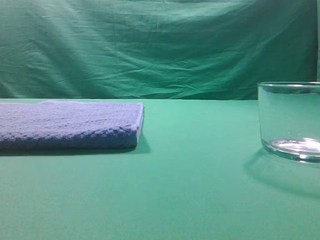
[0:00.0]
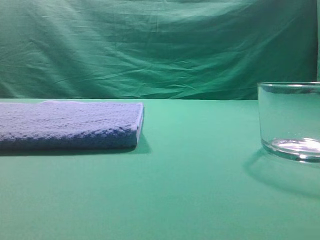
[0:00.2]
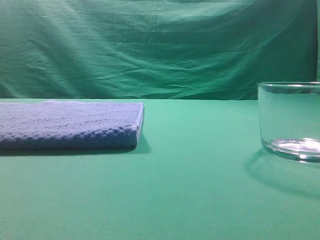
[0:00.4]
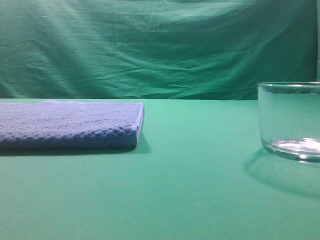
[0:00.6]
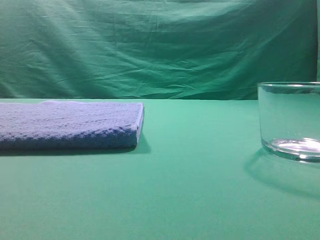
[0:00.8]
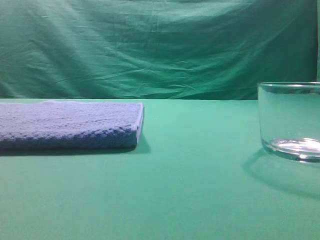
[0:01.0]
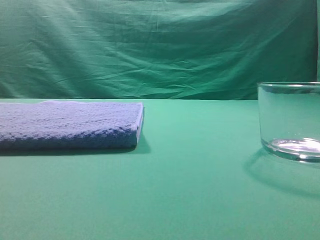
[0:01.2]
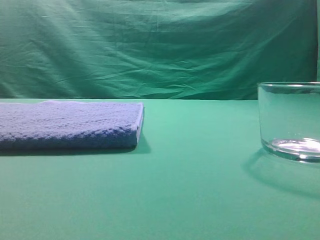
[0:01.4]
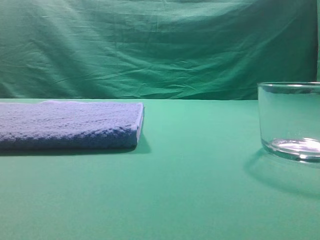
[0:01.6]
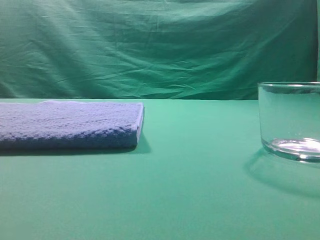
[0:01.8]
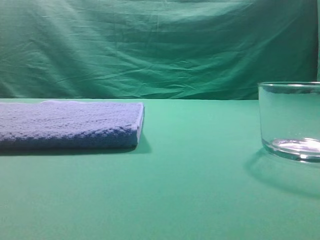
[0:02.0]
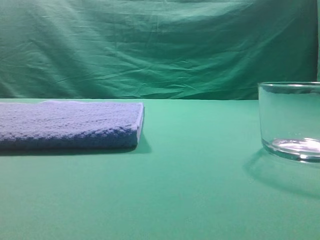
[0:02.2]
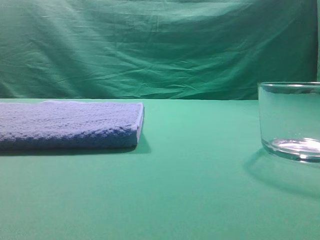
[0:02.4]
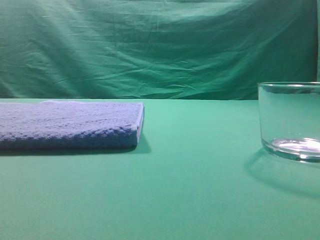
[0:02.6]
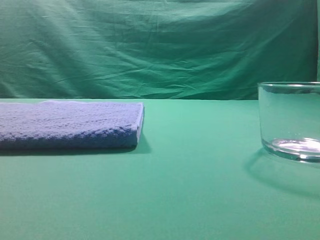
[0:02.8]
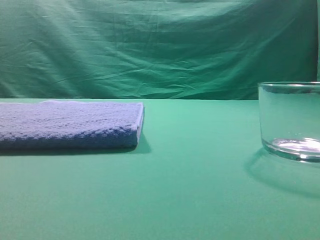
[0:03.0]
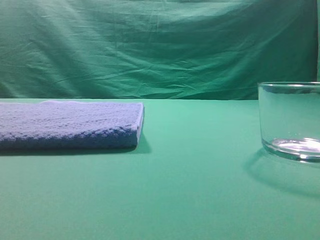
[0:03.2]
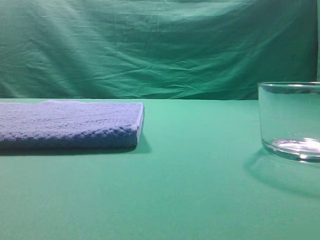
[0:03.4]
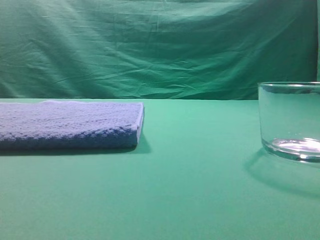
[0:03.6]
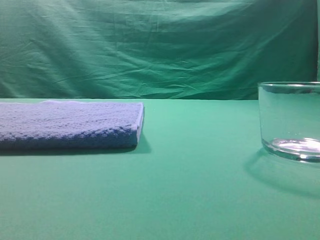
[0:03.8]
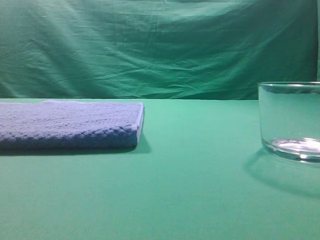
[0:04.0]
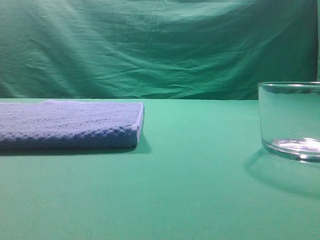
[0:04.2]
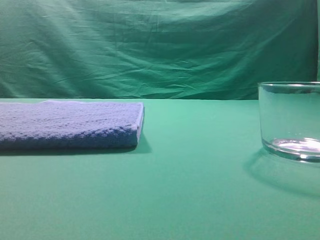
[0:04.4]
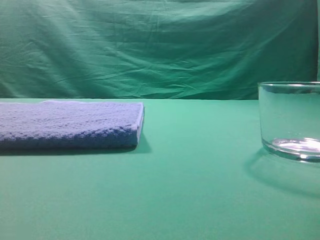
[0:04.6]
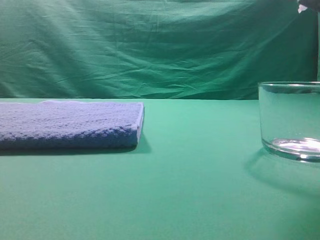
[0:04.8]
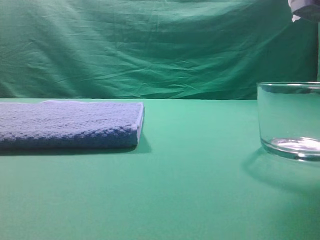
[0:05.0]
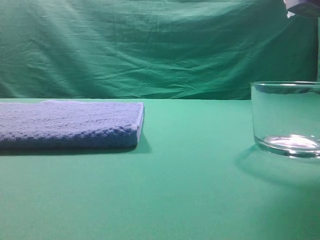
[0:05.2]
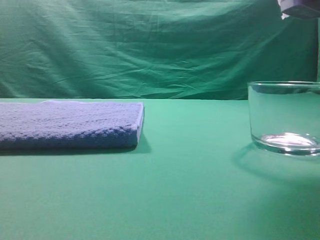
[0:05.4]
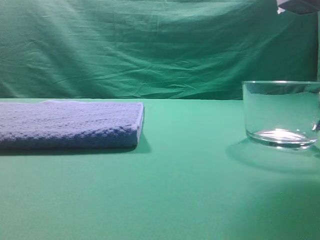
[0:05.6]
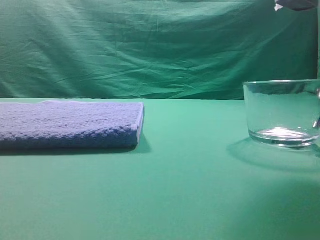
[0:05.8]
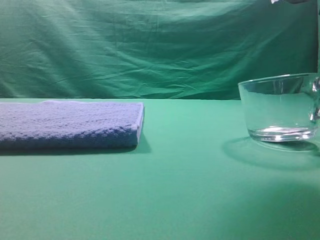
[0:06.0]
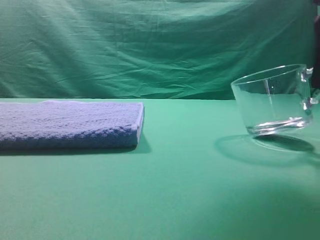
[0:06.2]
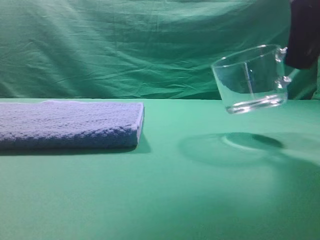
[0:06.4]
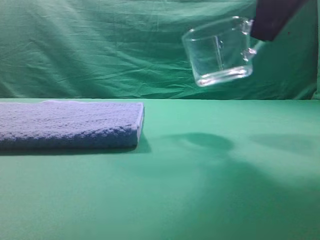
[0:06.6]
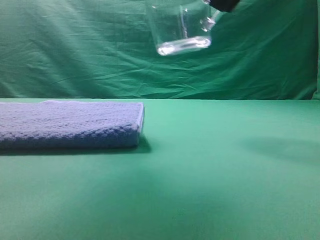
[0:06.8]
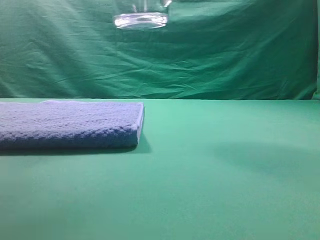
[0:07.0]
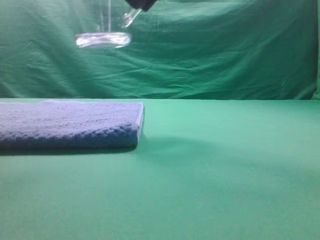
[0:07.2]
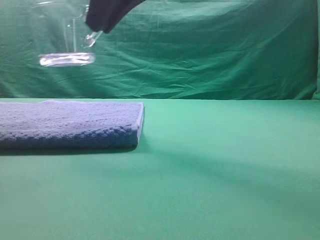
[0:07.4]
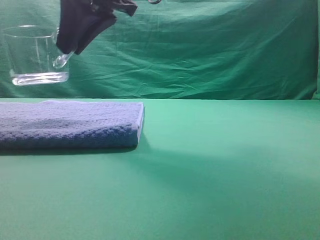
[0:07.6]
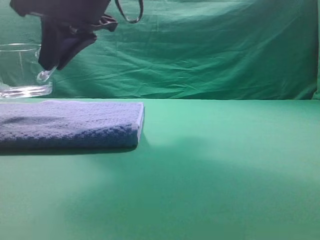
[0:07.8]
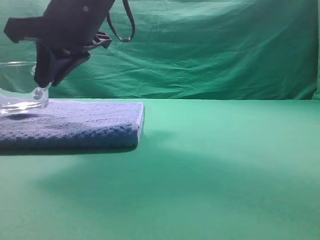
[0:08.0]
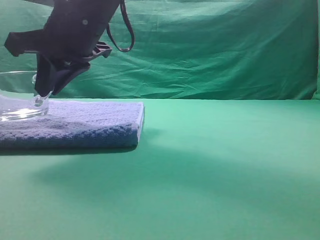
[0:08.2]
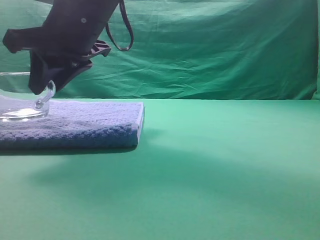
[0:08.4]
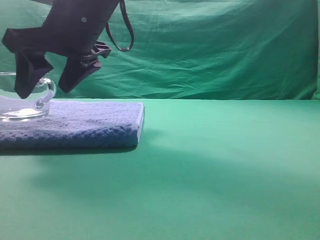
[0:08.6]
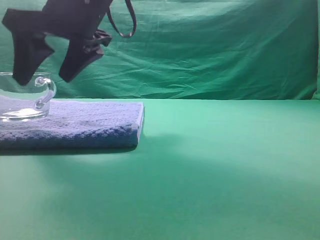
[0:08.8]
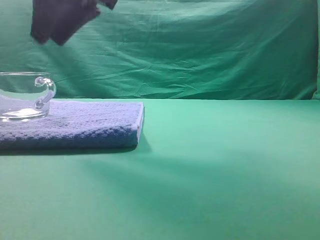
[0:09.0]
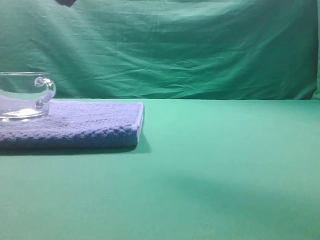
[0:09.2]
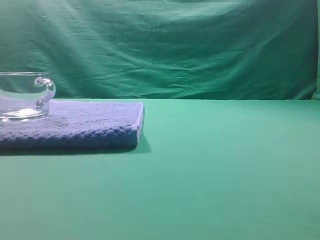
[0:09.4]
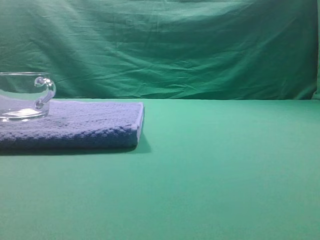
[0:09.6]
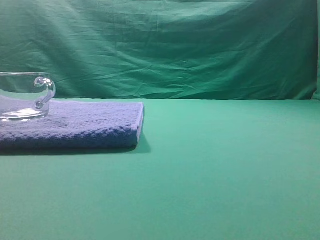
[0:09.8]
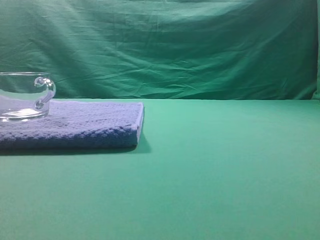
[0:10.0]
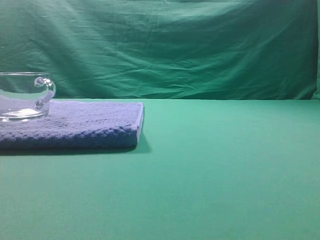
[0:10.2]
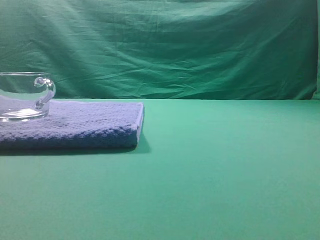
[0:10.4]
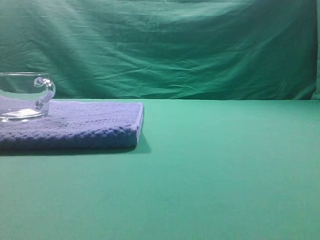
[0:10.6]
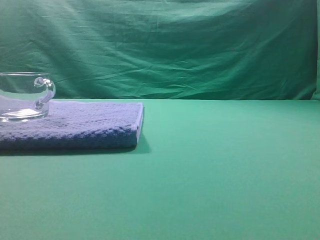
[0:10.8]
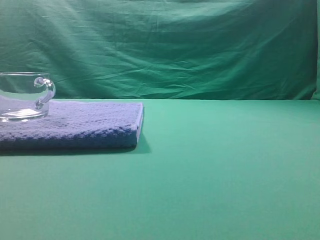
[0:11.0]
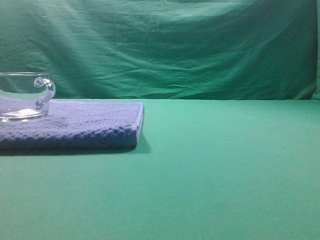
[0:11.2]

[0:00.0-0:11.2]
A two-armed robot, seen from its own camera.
Task of the whole recording: grasp the transparent glass cup and place it within the blue towel.
Step, 0:00.0 to 0:06.4: Grasp the transparent glass cup.
Step, 0:06.6 to 0:08.8: Place the glass cup on the blue zone.

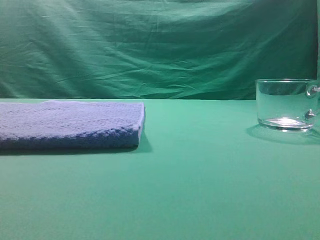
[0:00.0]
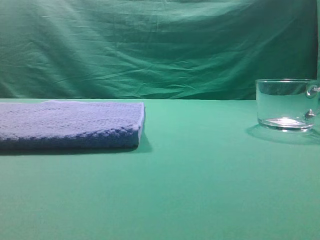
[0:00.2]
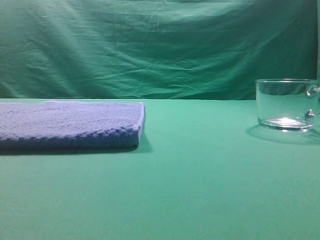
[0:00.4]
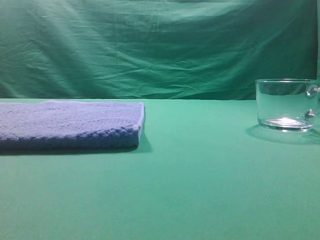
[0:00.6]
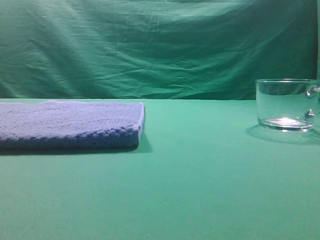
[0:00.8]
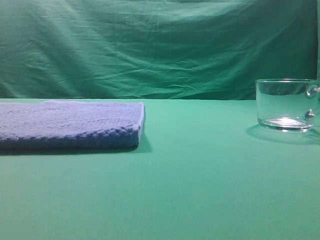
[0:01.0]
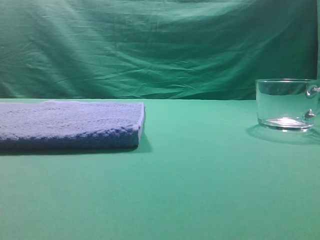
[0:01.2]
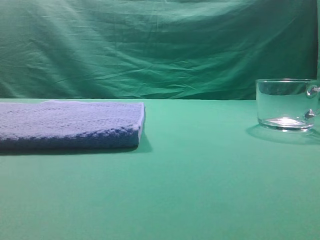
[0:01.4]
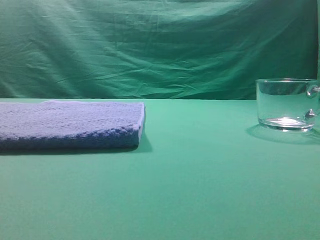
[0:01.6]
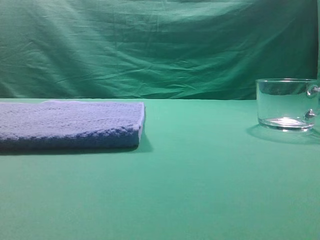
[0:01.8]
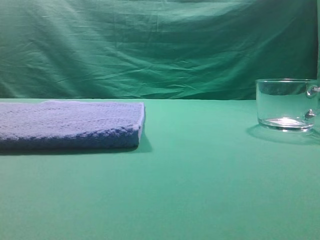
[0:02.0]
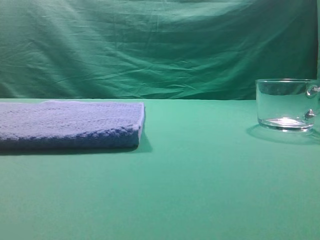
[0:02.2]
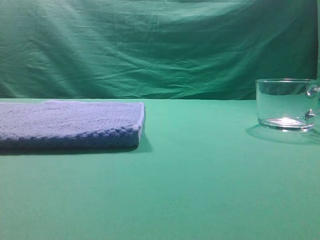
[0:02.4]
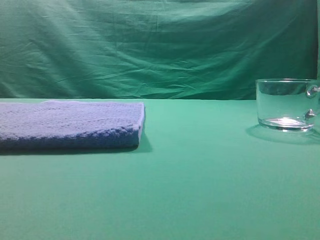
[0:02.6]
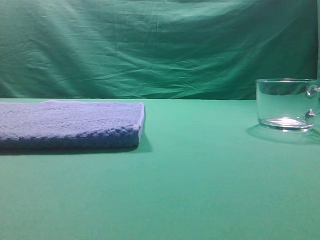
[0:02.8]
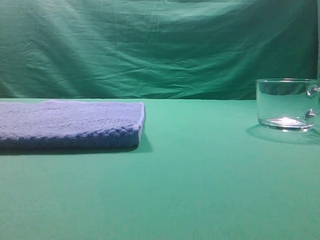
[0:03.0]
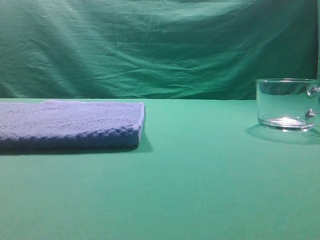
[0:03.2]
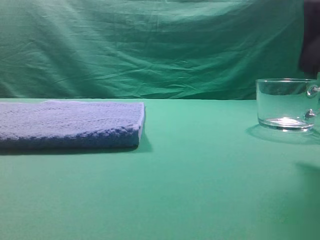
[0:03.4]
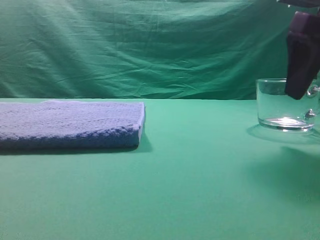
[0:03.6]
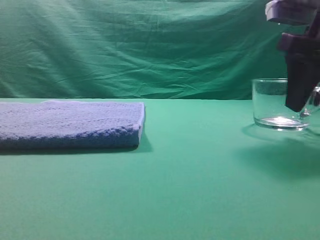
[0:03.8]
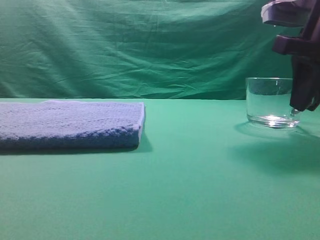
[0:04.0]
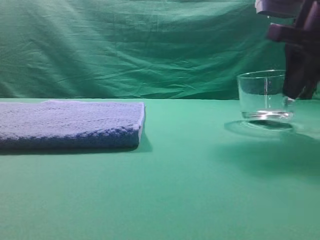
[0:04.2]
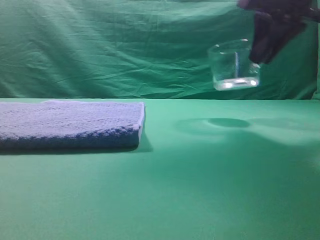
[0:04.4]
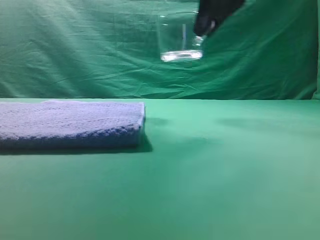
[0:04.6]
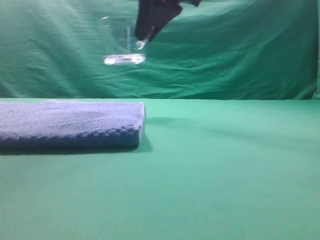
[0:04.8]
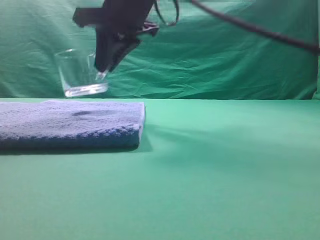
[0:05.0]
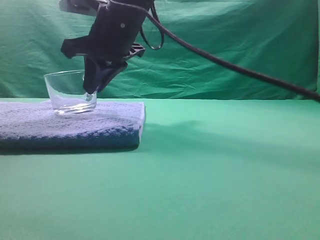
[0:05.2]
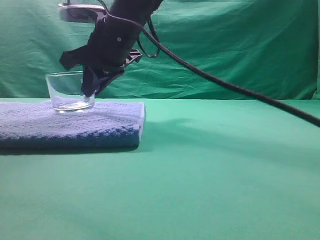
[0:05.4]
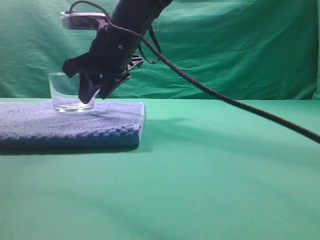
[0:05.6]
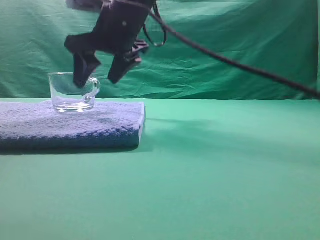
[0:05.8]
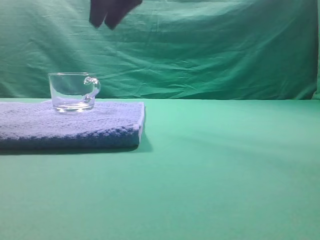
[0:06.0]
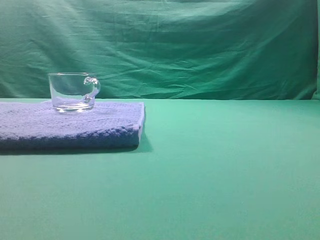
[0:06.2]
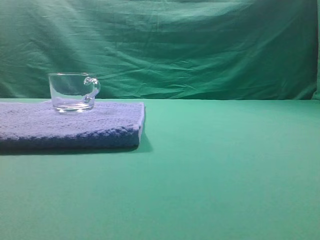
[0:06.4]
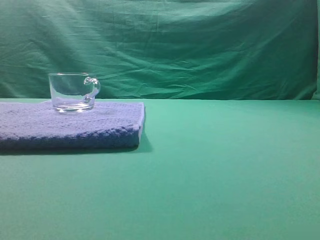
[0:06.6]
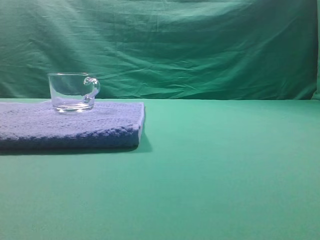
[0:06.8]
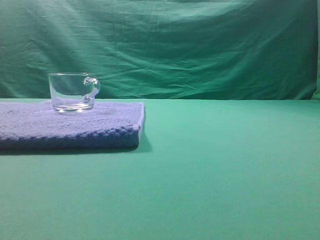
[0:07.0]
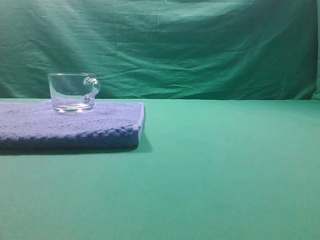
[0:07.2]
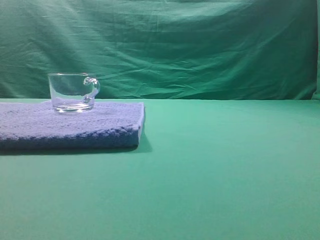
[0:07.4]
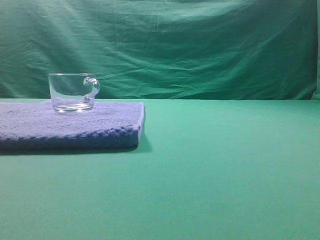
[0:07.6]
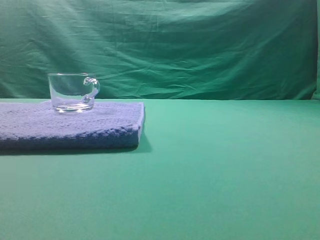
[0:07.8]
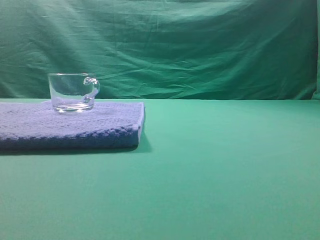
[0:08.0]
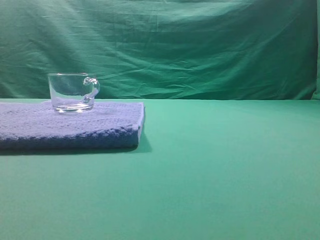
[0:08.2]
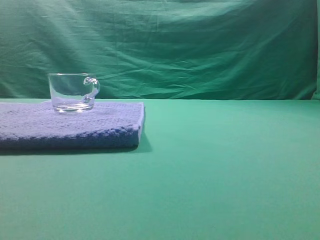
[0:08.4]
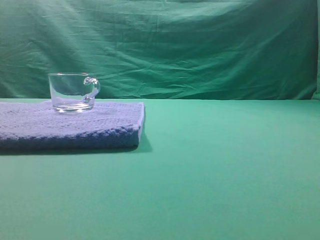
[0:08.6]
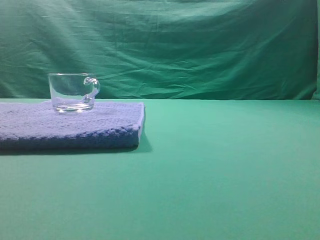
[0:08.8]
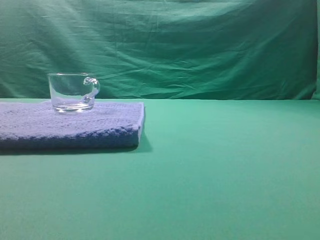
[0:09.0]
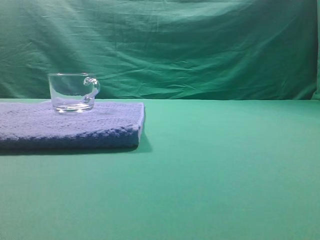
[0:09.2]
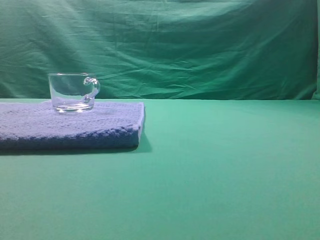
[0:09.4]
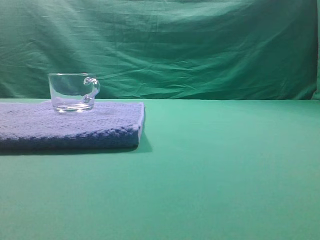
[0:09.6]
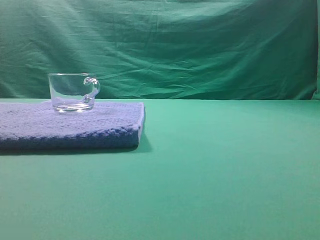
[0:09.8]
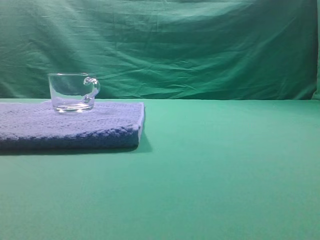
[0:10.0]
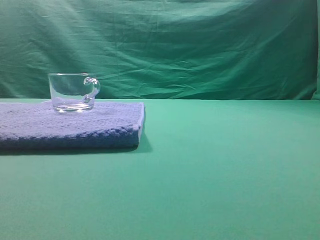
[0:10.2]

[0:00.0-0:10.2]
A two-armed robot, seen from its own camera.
Task of the whole recording: grasp the transparent glass cup and place it within the blue towel.
Step, 0:00.0 to 0:04.2: Grasp the transparent glass cup.
Step, 0:04.6 to 0:05.8: Place the glass cup on the blue zone.
